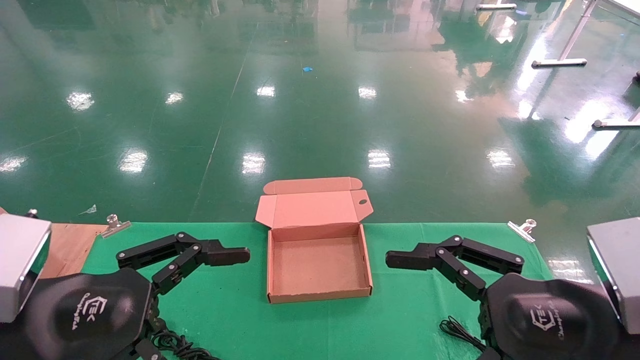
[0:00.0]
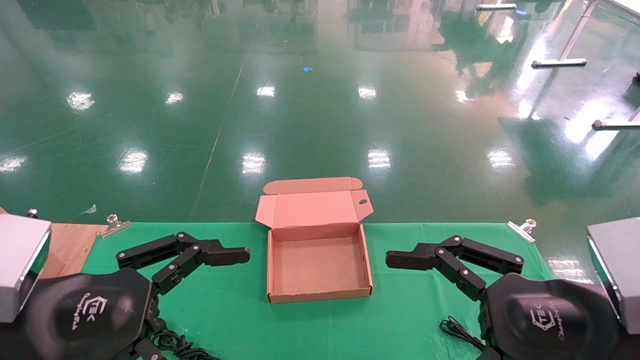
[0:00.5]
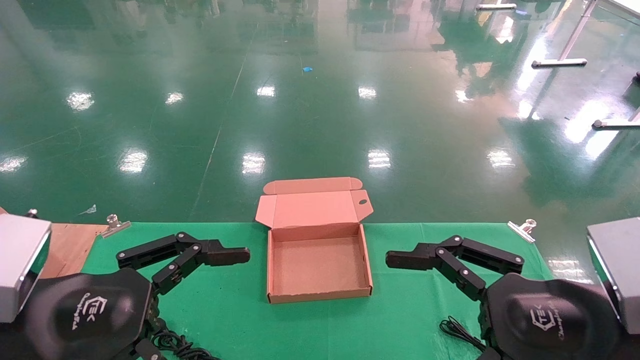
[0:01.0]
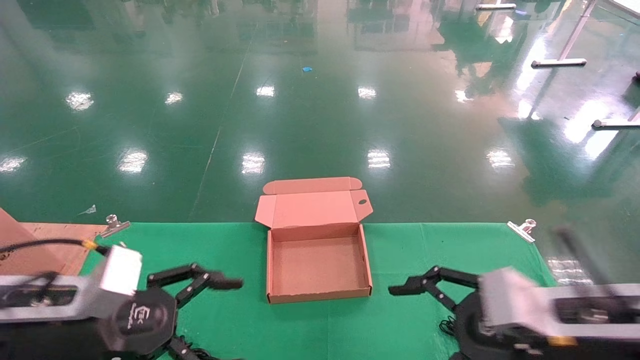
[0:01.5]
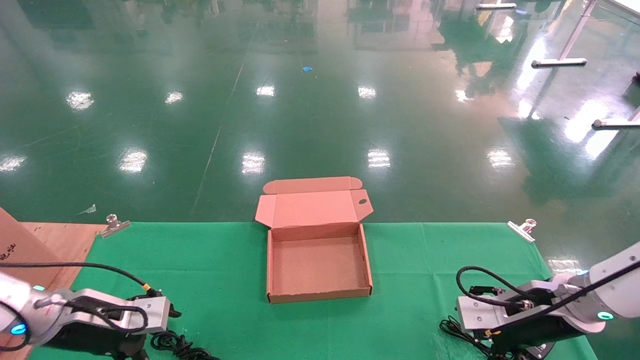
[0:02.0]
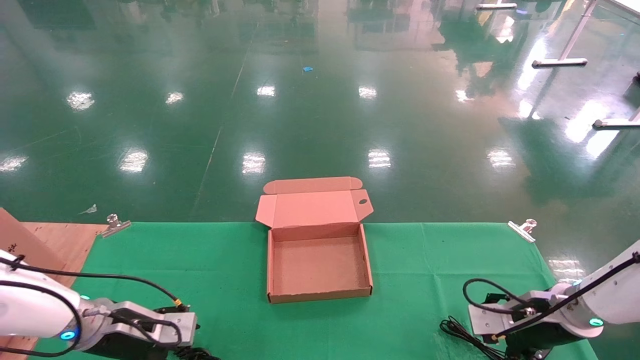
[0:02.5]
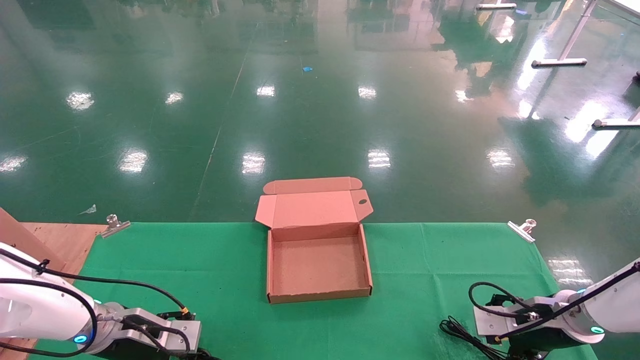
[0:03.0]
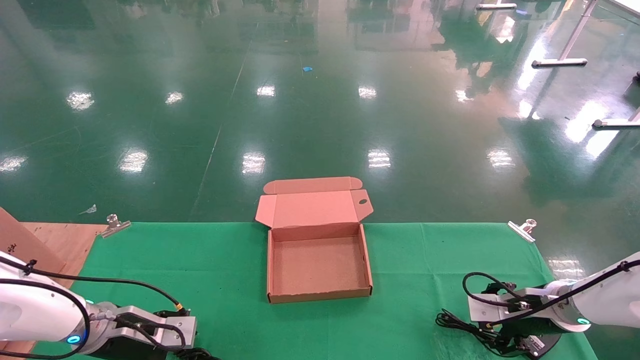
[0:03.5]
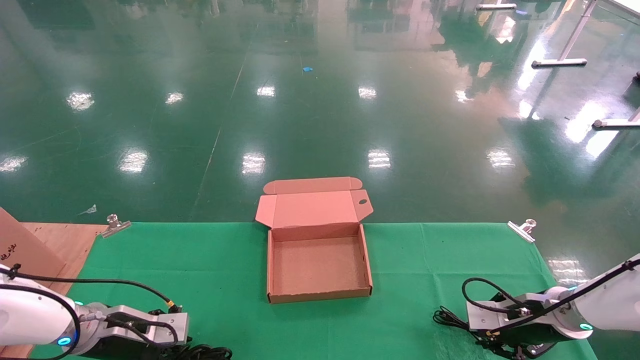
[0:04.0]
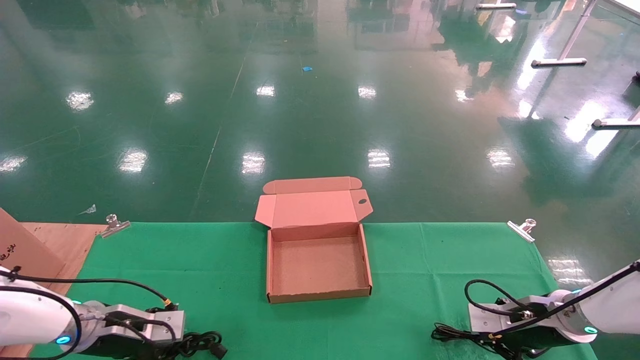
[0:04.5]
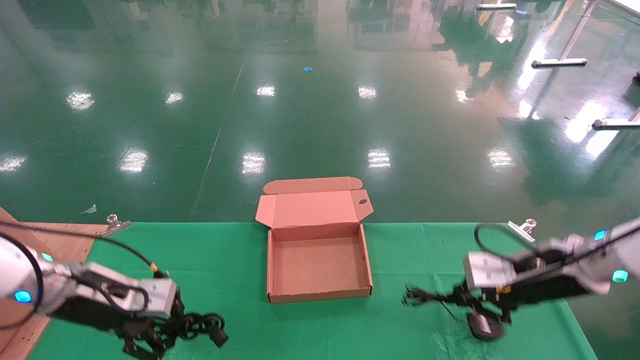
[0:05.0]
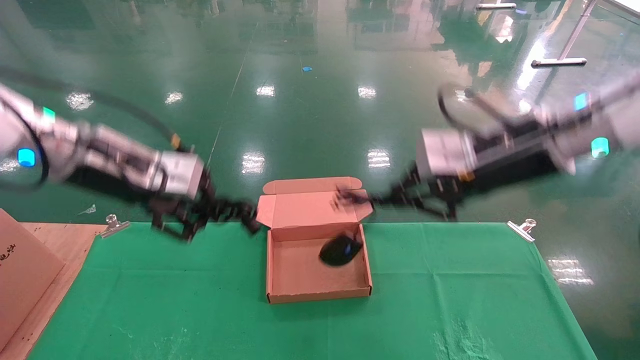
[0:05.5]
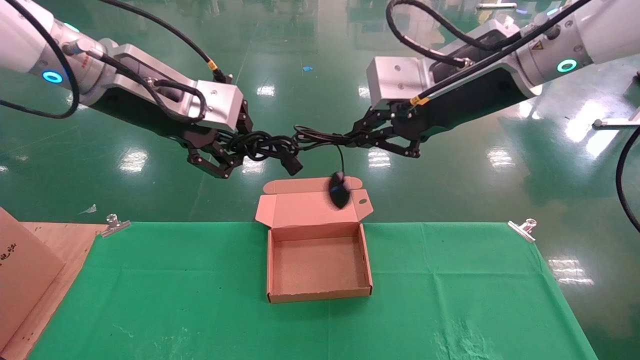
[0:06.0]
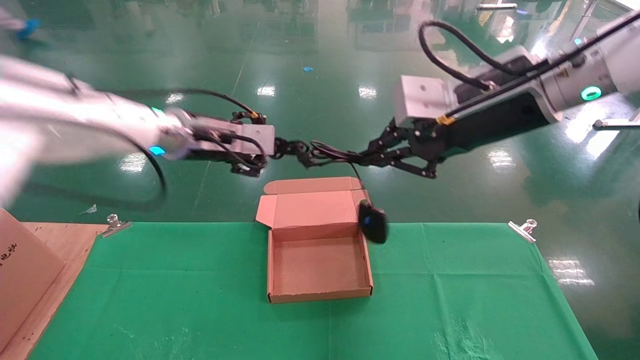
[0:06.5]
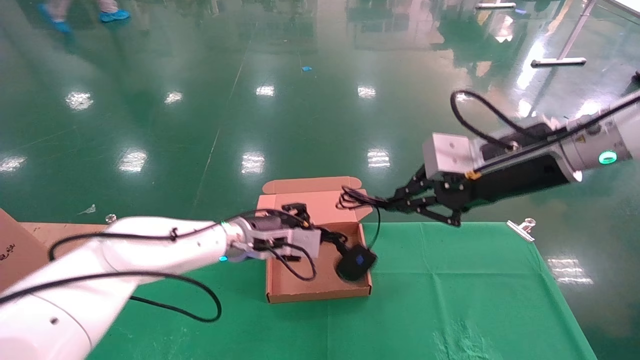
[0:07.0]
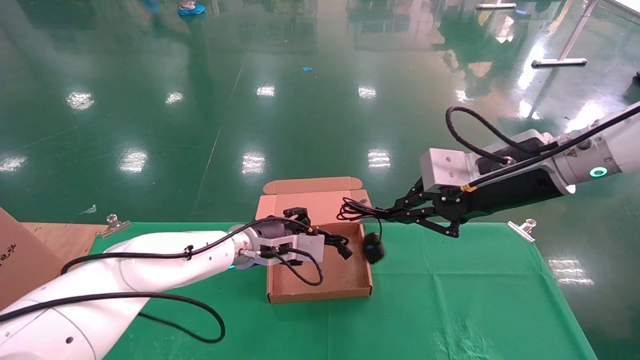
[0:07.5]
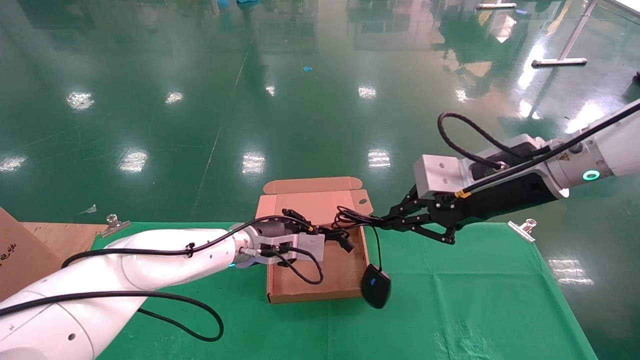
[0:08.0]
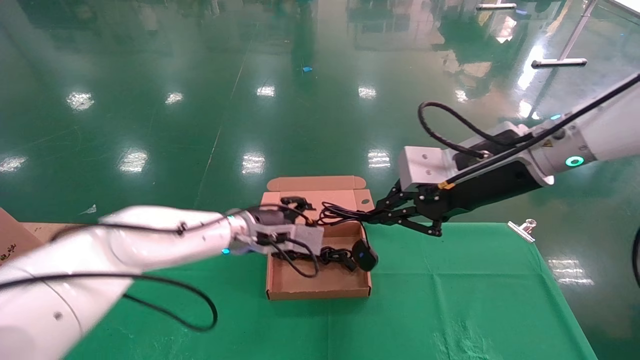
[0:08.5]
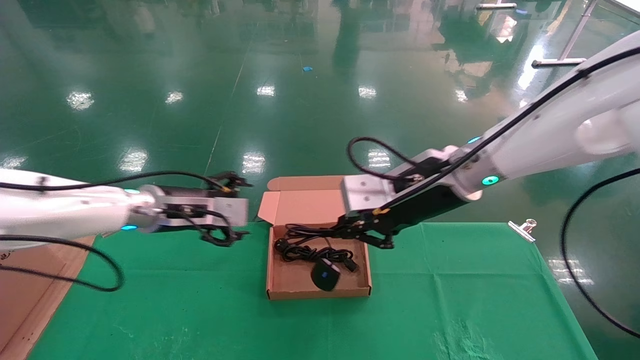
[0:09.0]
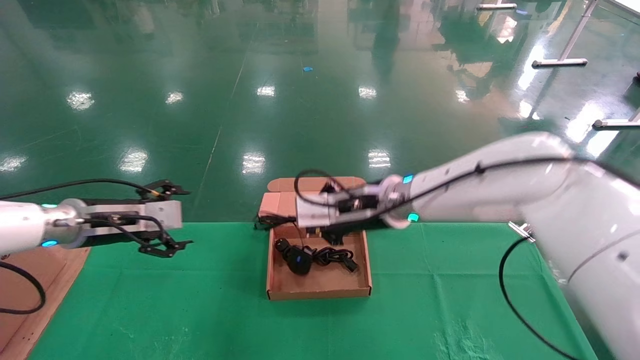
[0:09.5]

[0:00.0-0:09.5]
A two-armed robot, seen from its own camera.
Step, 0:02.0 to 0:05.0: Grab and lift both the mouse and power cord from the accessory packaging area at the same time.
0:00.0 to 0:02.0: The left gripper moves forward, downward and to the left, approximately 25 cm, while the right gripper travels forward and downward by roughly 20 cm.
0:02.0 to 0:04.0: The left gripper is displaced downward by about 5 cm, and closes up, while the right gripper shifts roughly 10 cm downward and forward, and closes up.
0:04.0 to 0:05.5: The left gripper goes roughly 30 cm upward, and closes its fingers. The right gripper is displaced upward and to the left by roughly 30 cm, and closes up.
0:05.5 to 0:07.5: The right gripper moves approximately 5 cm upward and comes back; the left gripper moves downward, to the right and forward, about 25 cm.
0:07.5 to 0:09.5: The left gripper goes roughly 20 cm to the left, and opens its fingers. Meanwhile the right gripper shifts approximately 20 cm to the left, downward and forward.

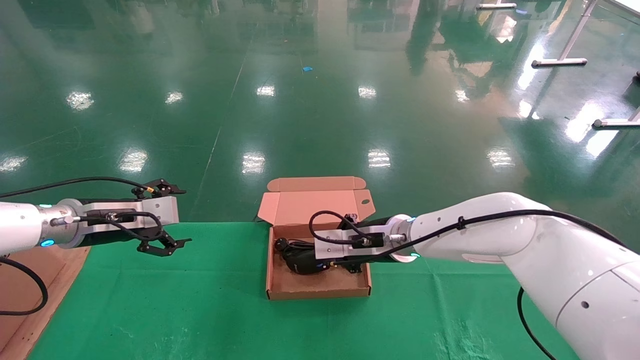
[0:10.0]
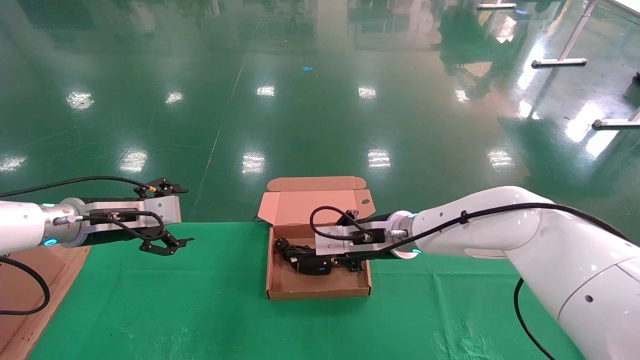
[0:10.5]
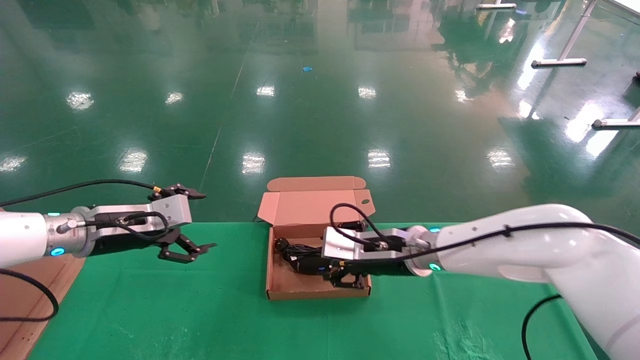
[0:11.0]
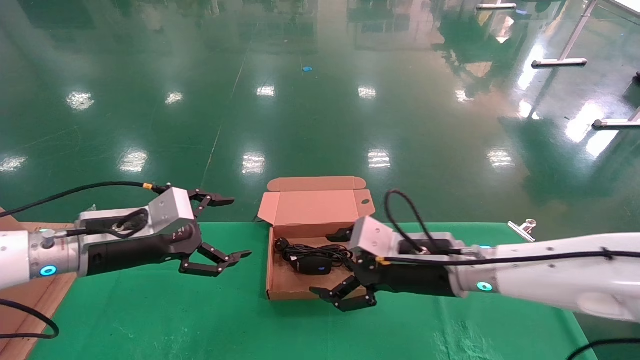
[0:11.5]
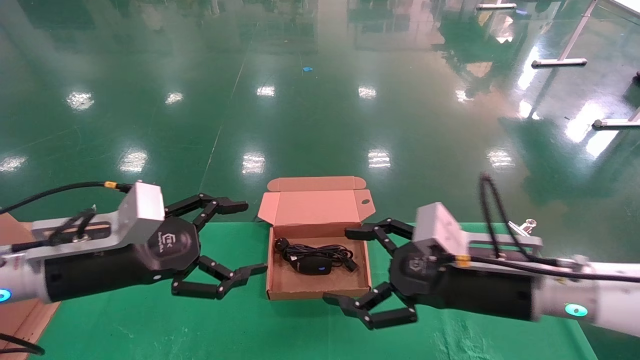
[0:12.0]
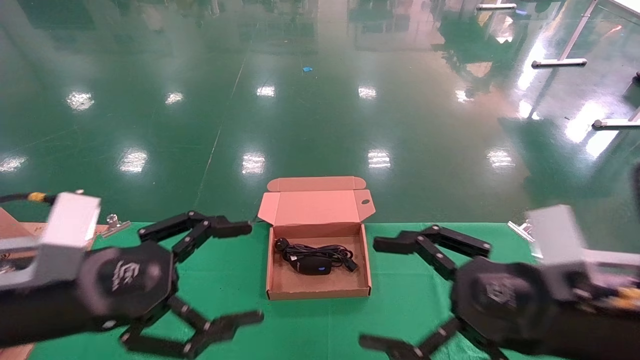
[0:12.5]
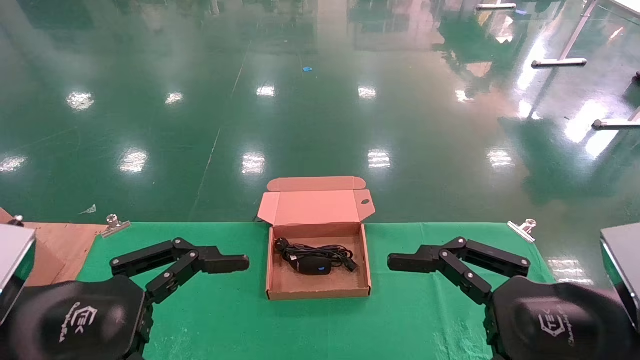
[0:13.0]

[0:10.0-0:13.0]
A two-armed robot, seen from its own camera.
0:10.0 to 0:11.5: Both grippers move backward and to the right, roughly 10 cm. The right gripper opens.
0:11.5 to 0:13.0: The left gripper travels backward by some 20 cm. Meanwhile the right gripper is displaced backward and to the right by about 20 cm.

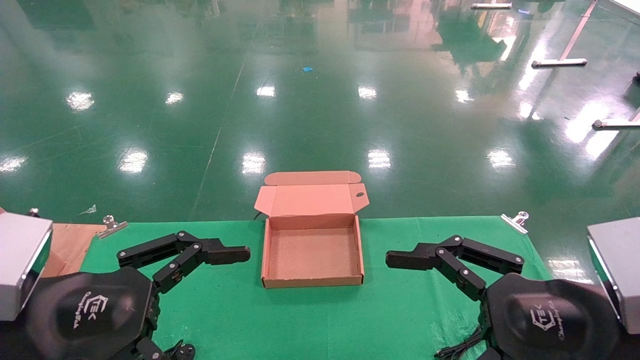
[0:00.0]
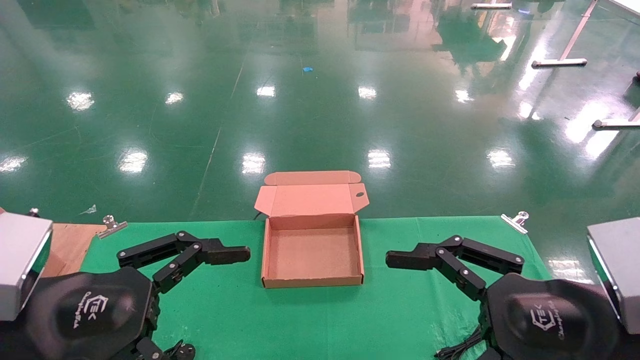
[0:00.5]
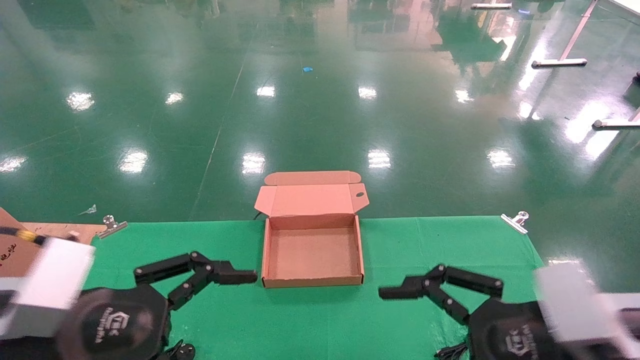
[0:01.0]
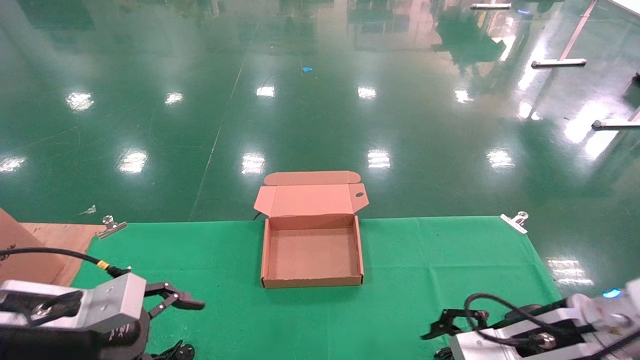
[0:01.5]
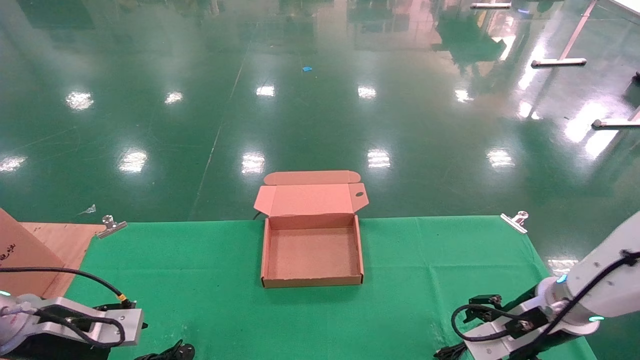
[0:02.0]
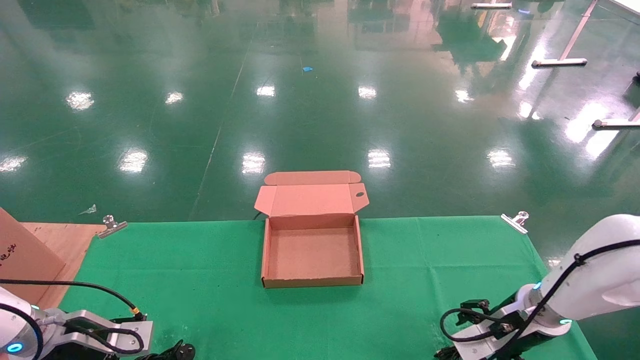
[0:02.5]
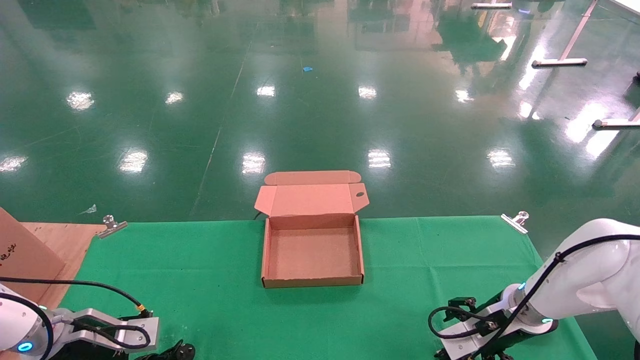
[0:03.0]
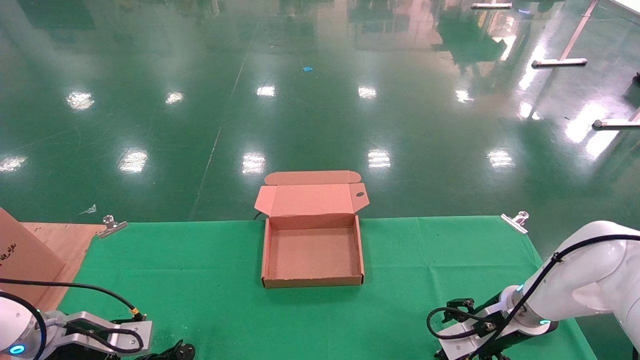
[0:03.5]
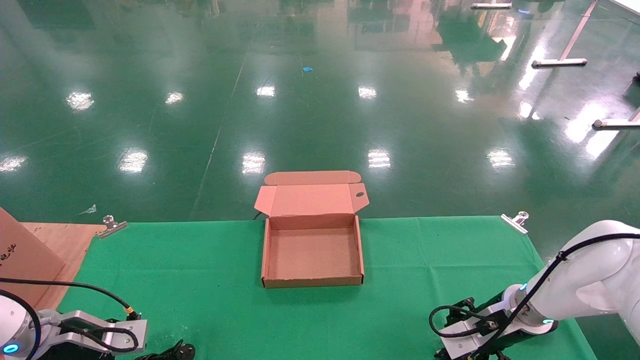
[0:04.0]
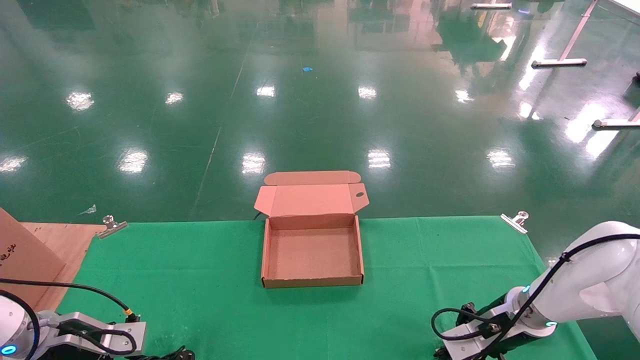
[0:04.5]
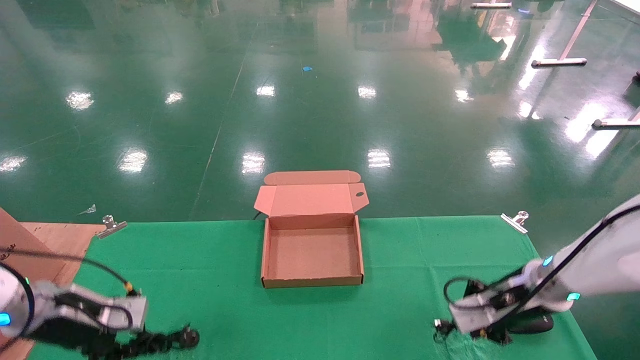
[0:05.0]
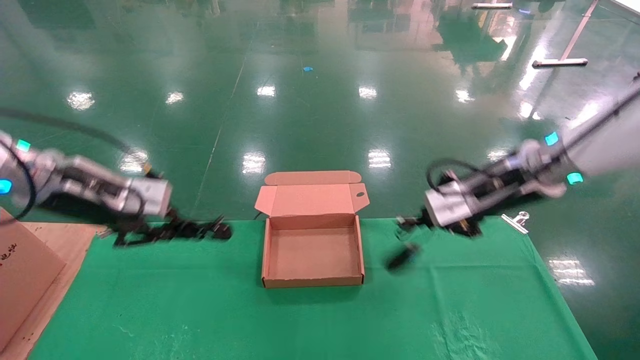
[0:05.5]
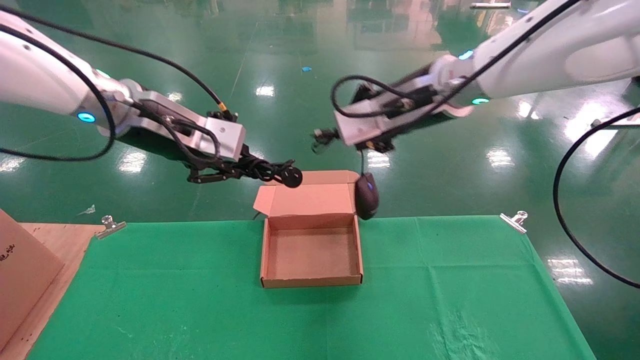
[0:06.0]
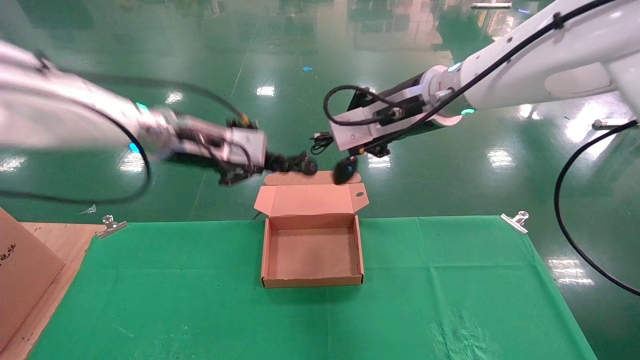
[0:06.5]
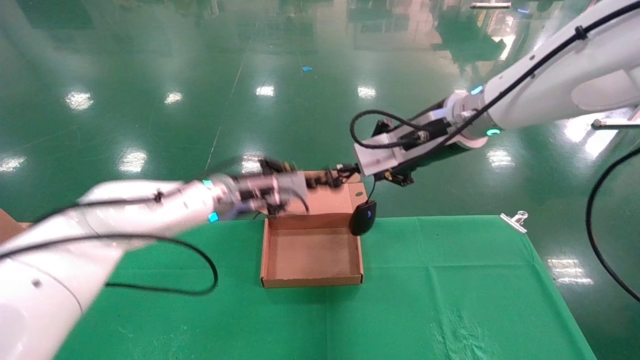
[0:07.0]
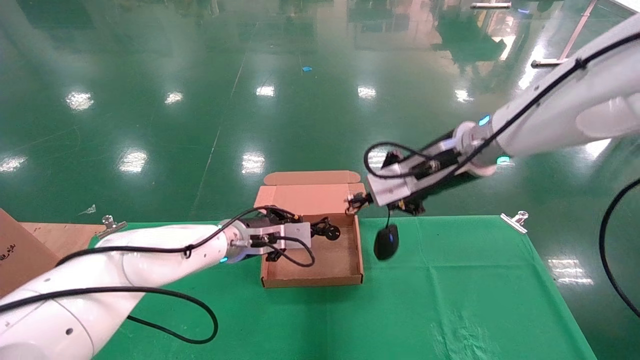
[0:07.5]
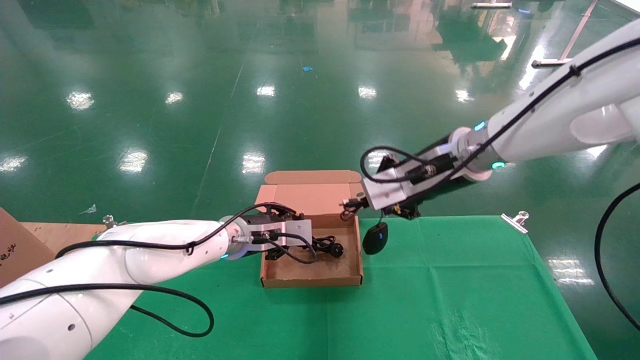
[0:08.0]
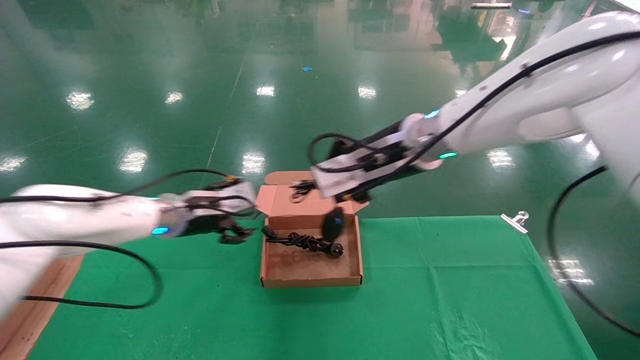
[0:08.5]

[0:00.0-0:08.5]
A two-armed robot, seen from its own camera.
Step, 0:01.5 to 0:05.0: Grab and lift both the mouse and power cord from the accessory packaging area at the same time.
0:00.0 to 0:02.0: The left gripper heads forward, downward and to the left, covering approximately 20 cm, while the right gripper is displaced forward and downward by some 20 cm.
0:02.0 to 0:04.0: The right gripper moves forward, some 5 cm. Meanwhile the left gripper is displaced downward by roughly 5 cm.
0:04.0 to 0:06.5: The left gripper travels upward and to the right by some 35 cm, and closes, while the right gripper moves upward and to the left, roughly 35 cm, and closes its fingers.
0:06.5 to 0:08.5: The left gripper goes some 15 cm downward, and opens up; the right gripper goes about 5 cm downward.
